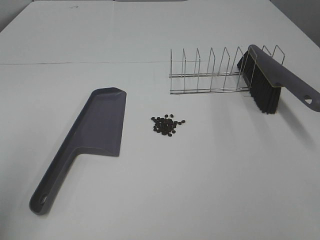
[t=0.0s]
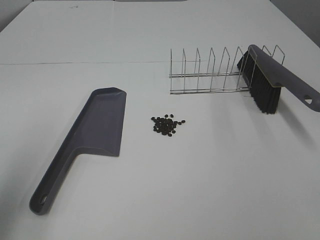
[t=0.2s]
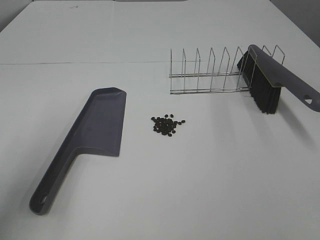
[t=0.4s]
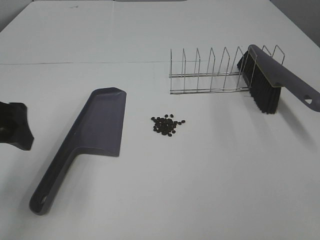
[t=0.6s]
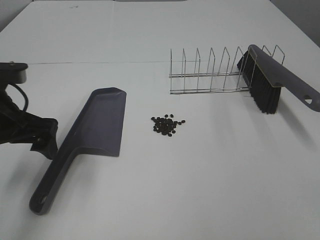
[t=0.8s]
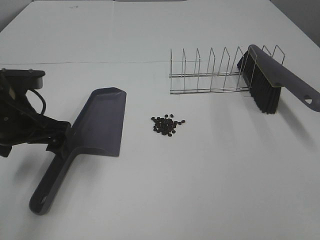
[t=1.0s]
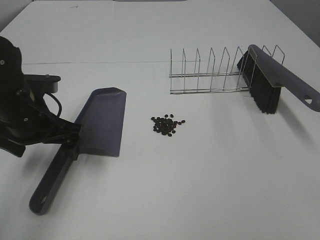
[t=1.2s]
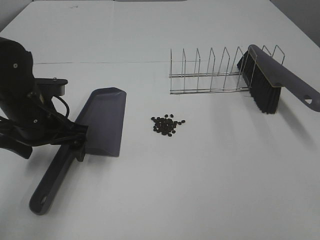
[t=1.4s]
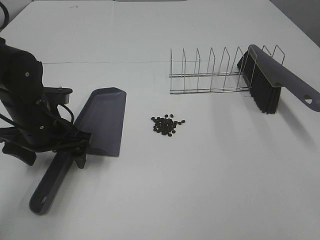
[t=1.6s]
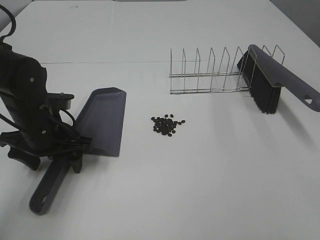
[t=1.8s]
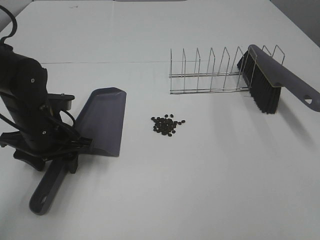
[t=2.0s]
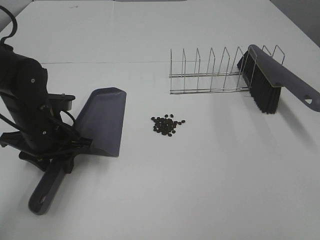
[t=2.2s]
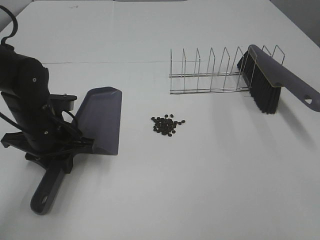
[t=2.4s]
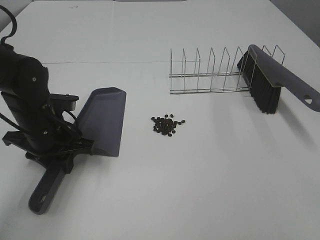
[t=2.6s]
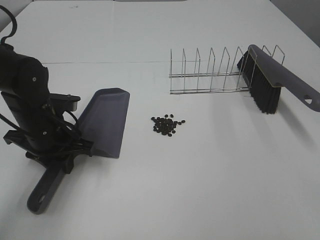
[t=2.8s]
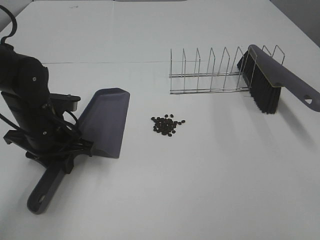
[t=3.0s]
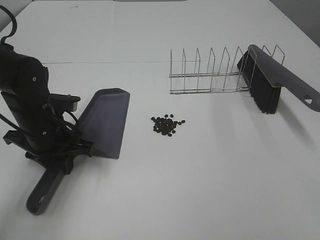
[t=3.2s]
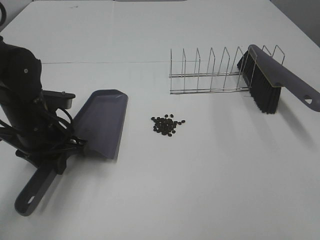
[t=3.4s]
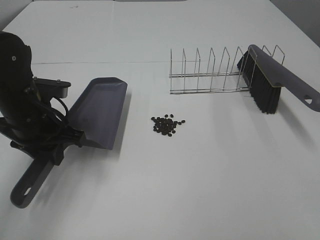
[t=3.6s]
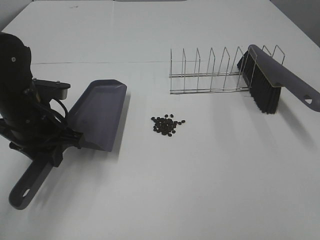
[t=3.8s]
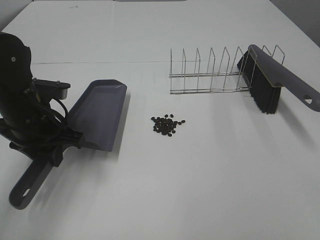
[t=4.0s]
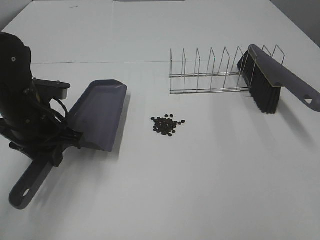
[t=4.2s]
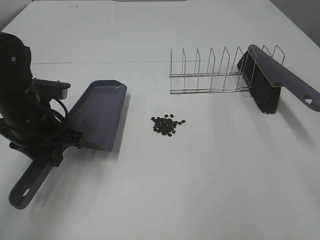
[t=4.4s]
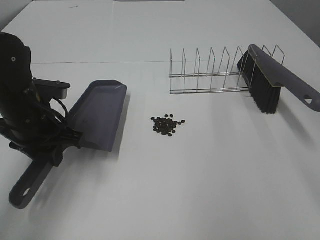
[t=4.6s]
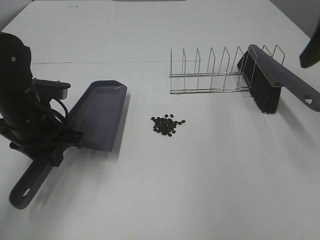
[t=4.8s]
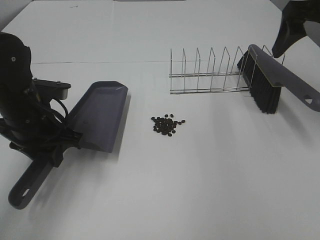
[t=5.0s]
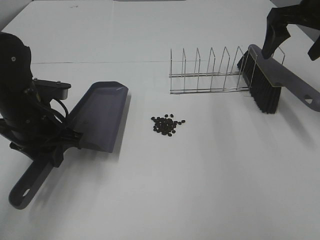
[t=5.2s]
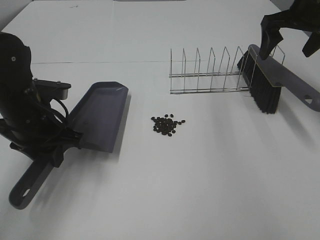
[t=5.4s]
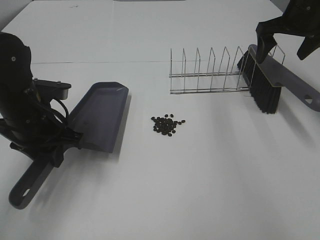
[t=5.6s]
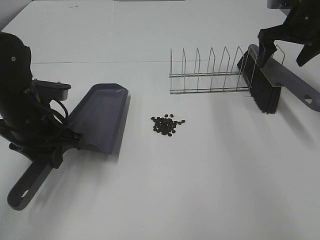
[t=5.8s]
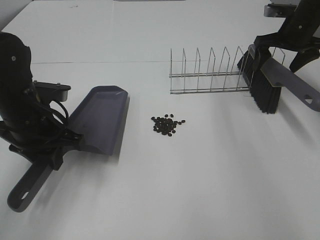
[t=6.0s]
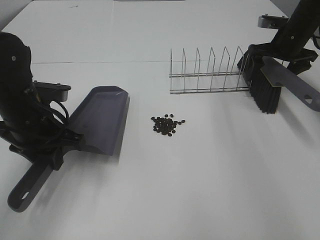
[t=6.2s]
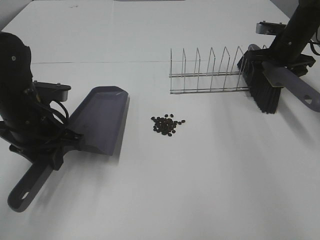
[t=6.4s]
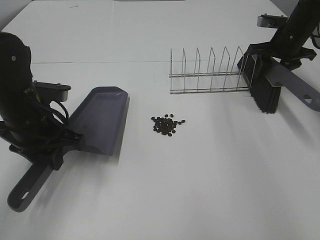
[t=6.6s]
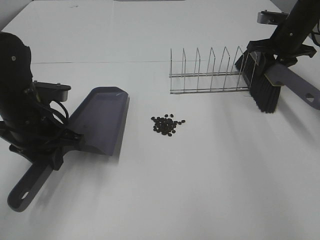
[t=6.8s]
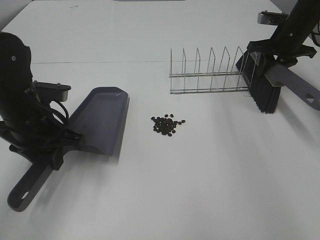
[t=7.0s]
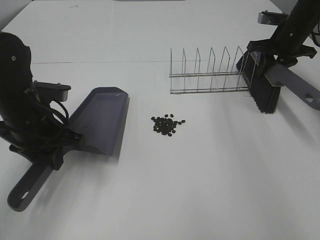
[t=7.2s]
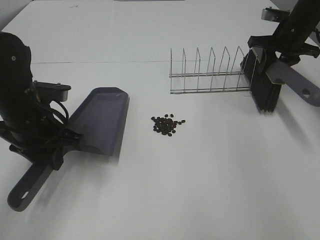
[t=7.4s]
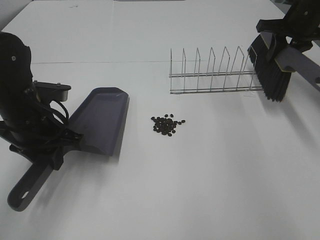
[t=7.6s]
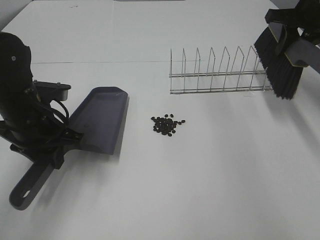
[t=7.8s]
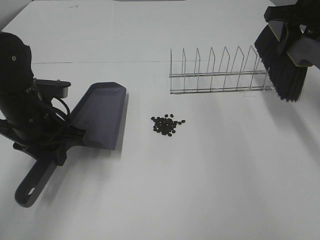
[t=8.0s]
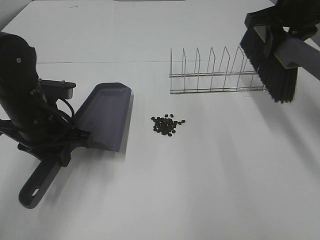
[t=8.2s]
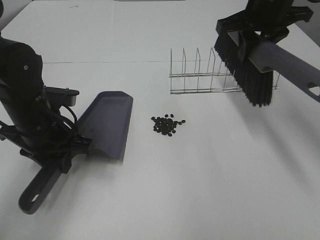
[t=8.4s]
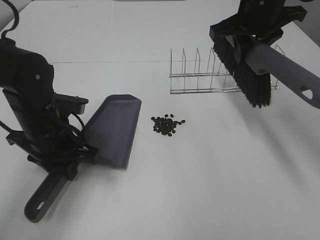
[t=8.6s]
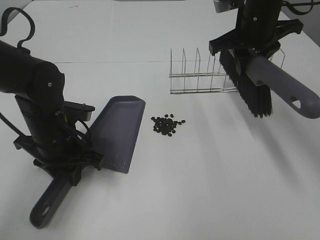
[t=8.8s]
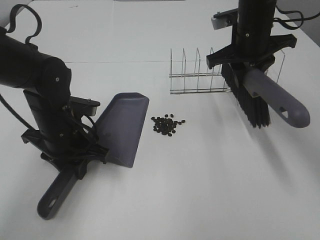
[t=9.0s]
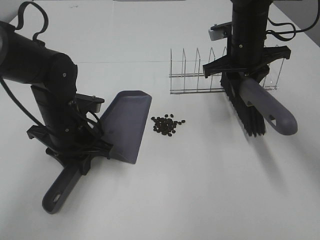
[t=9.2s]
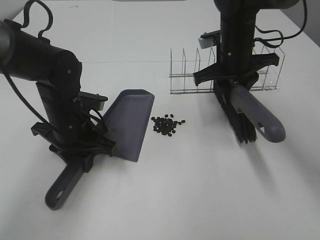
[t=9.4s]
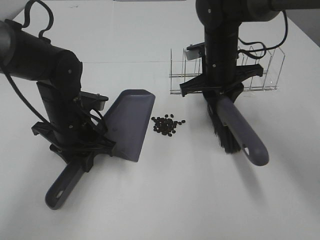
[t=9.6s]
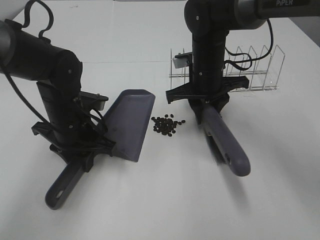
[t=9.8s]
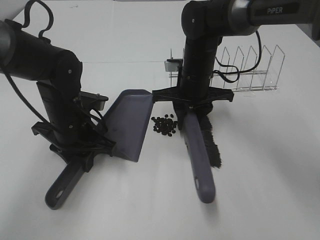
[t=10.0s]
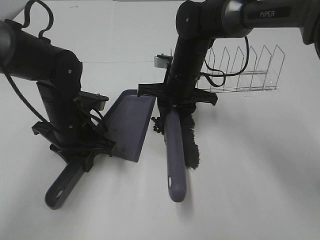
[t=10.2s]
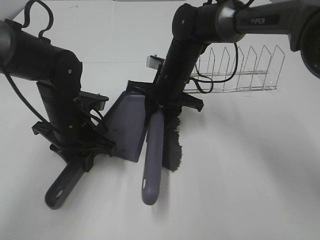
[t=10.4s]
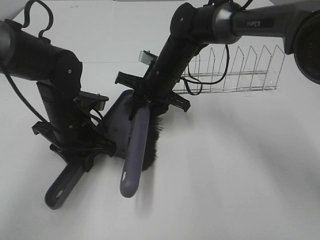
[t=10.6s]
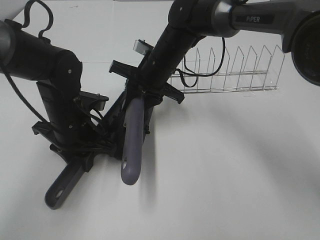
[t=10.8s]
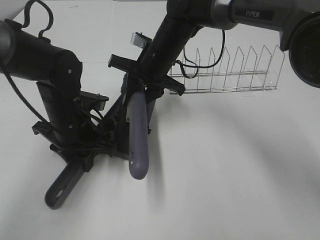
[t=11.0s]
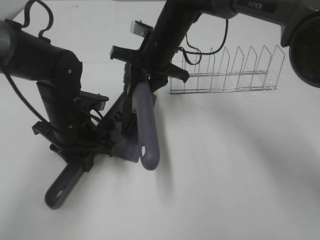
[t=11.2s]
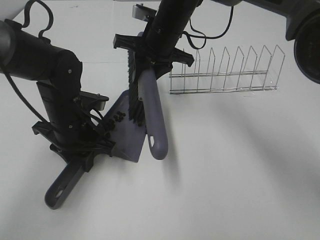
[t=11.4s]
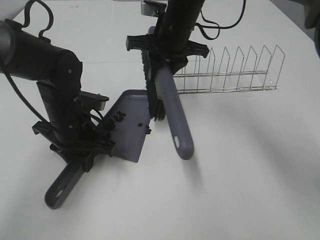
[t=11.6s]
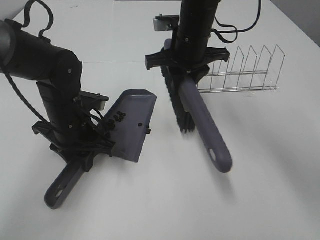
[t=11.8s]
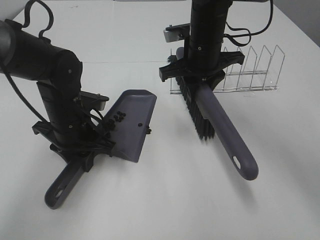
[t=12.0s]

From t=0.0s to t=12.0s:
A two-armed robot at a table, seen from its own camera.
Task of the whole recording: Sweep Coffee Bean.
Step, from t=0.0s to t=2.4s: Left hand: grab the dustpan.
Step, from t=3.8s to t=6.8s: Right hand:grab the broom.
From t=0.0s to t=1.6s: The left gripper shifts about 30 cm downward, forward and to the right.
From t=1.6s to t=3.0s: The left gripper closes its fingers.
From t=4.4s to t=6.0s: The right gripper goes some 40 cm forward.
From t=6.0s to t=7.6s: The right gripper moves about 5 cm, and closes its fingers.
From t=7.6s to t=9.0s: The left gripper ends up roughly 5 cm from where it was. Meanwhile the right gripper heads to the left and backward, covering about 15 cm.
From t=9.0s to t=10.4s: The right gripper moves to the left and downward, about 15 cm.
From t=10.4s to t=12.0s: The right gripper shifts about 10 cm upward.

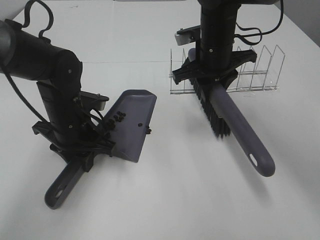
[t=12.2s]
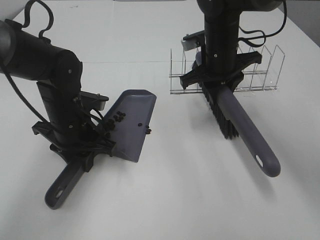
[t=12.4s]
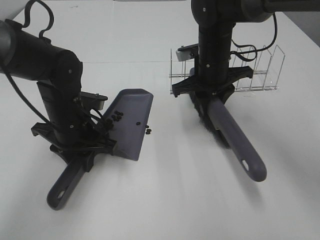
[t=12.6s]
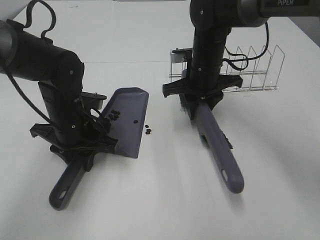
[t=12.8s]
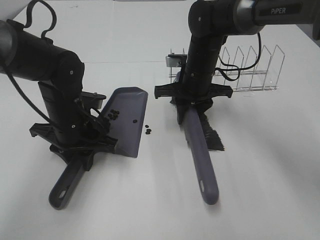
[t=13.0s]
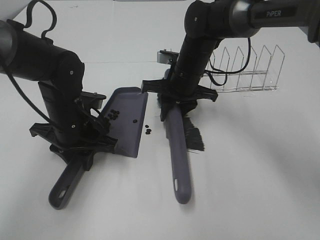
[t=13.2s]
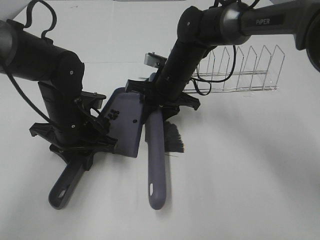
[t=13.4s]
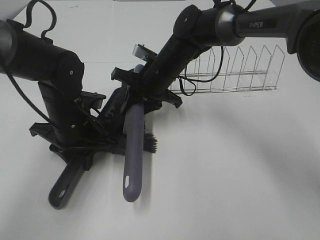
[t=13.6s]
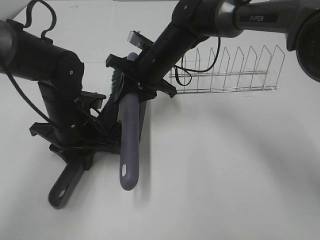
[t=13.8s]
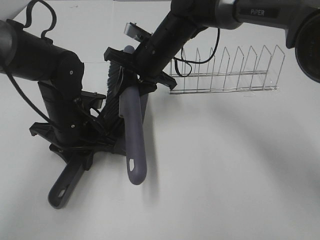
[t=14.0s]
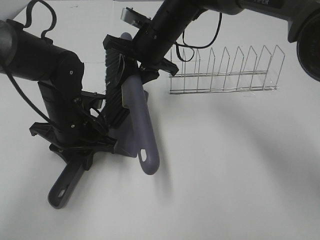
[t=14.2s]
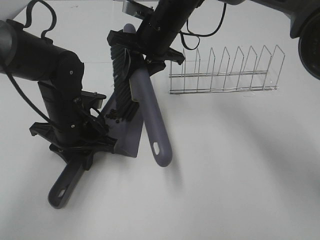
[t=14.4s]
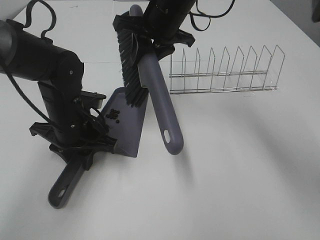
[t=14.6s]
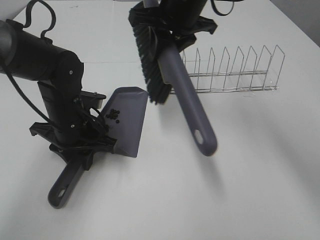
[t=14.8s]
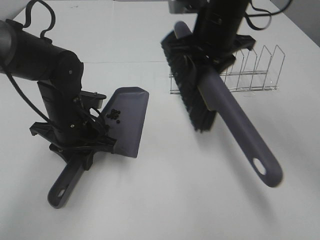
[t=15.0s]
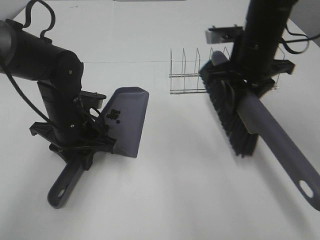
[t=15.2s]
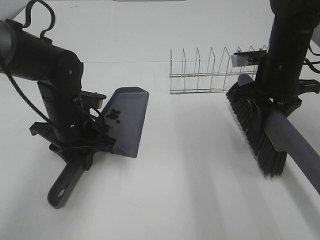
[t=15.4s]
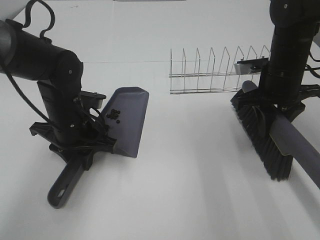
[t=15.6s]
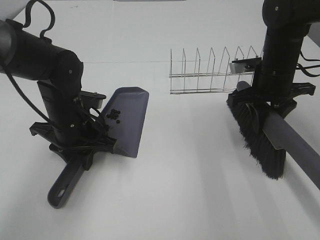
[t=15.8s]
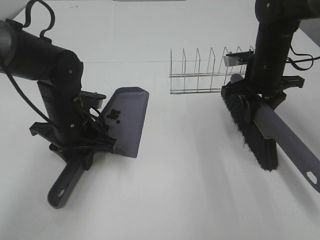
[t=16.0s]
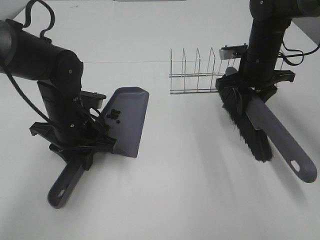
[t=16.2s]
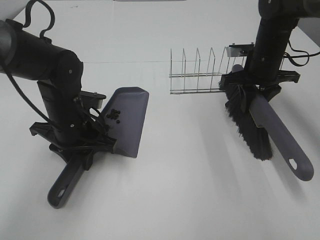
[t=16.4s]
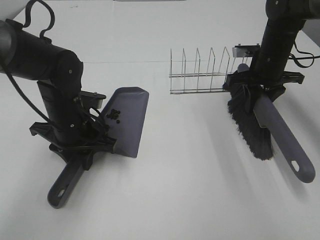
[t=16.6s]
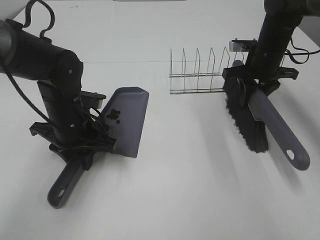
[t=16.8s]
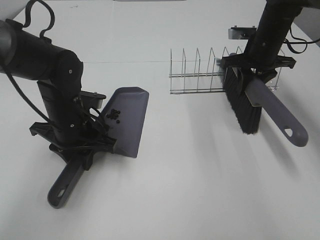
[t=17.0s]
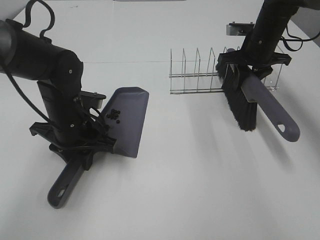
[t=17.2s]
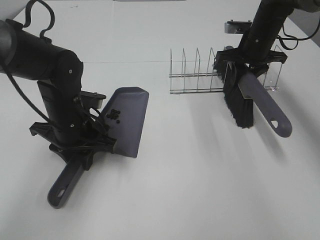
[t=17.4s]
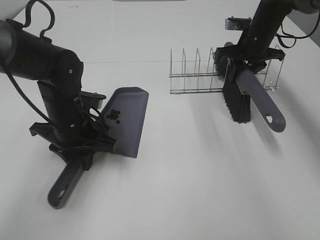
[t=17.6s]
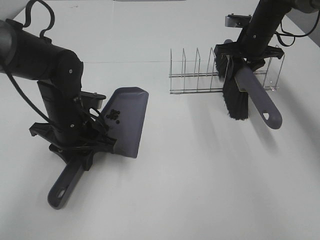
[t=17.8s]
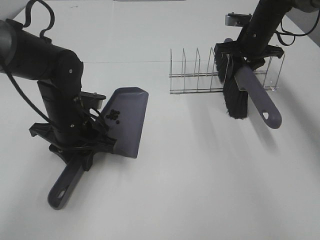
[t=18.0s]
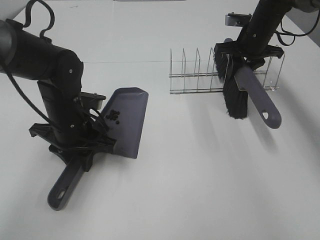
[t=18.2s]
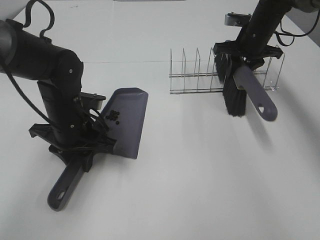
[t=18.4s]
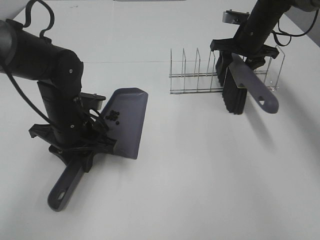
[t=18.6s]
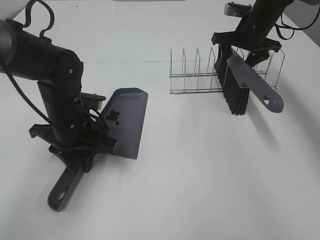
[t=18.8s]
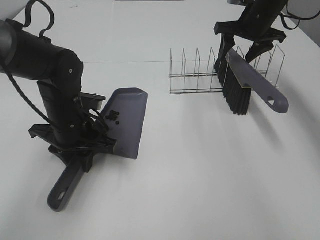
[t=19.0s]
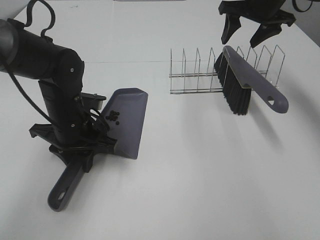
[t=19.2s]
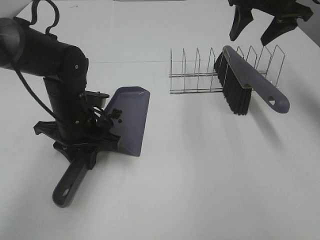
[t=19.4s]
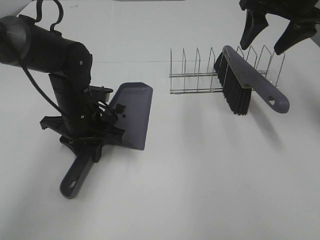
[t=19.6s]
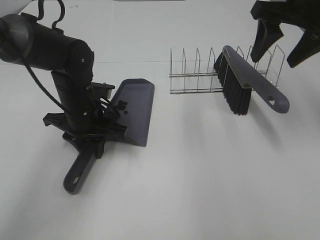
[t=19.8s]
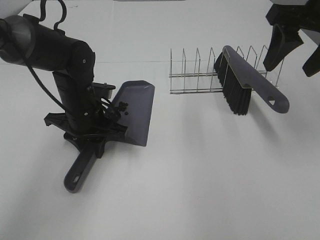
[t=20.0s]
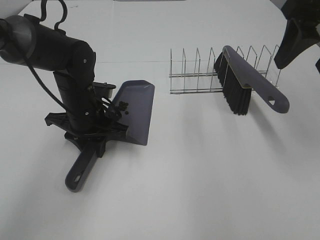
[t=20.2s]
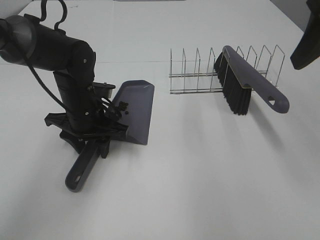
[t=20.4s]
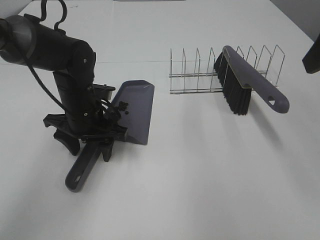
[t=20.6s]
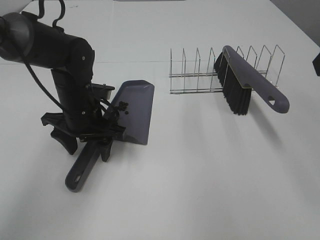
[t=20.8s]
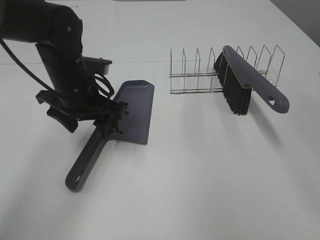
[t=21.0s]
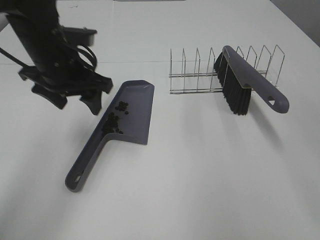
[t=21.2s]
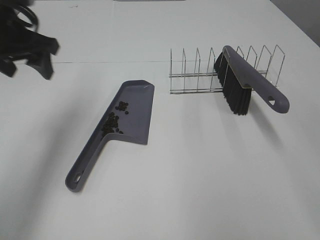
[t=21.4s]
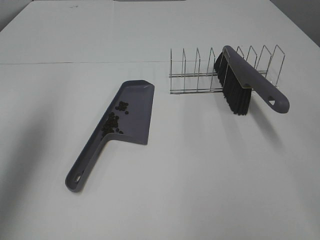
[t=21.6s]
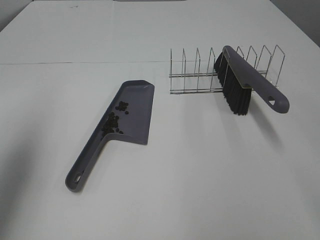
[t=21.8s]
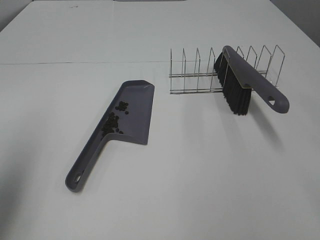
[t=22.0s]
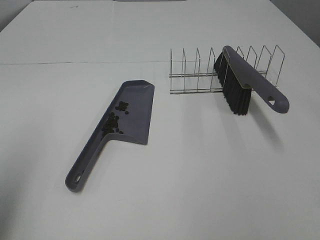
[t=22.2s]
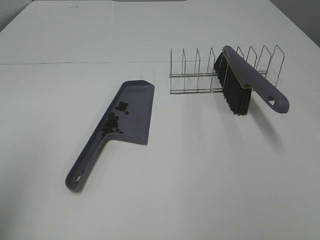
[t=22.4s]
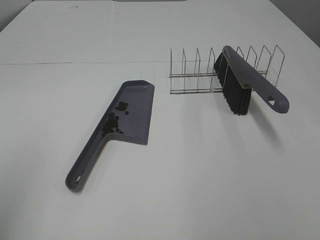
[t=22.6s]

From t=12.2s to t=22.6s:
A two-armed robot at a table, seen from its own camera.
Task of the whole recording: Sweep Coffee Bean.
Step, from t=14.0s to t=19.0s: Right hand:place the broom on the rack.
From t=12.2s to t=13.6s: The right gripper is displaced to the left and downward by approximately 10 cm.
From t=13.6s to t=15.2s: The right gripper shifts about 20 cm to the right, upward and backward.
From t=15.2s to t=16.6s: The right gripper travels forward, downward and to the right by about 10 cm.
From t=16.6s to t=18.2s: The right gripper goes approximately 5 cm forward.
From t=18.2s to t=19.6s: The right gripper moves upward and backward, about 15 cm, and opens up.
From t=19.6s to t=21.2s: The left gripper goes roughly 10 cm upward, and opens; the right gripper travels backward by roughly 25 cm.
From t=21.2s to t=22.6s: The left gripper moves backward and to the left, some 30 cm.
